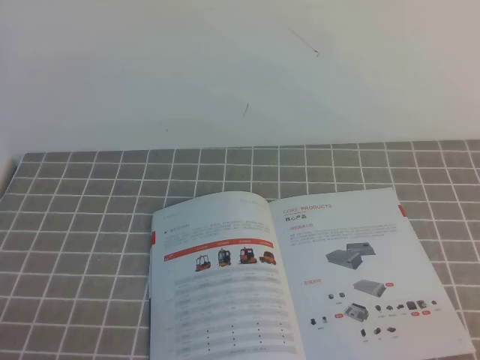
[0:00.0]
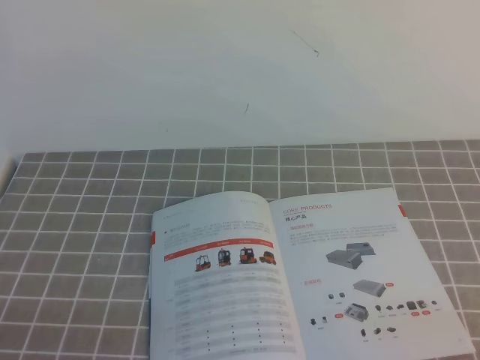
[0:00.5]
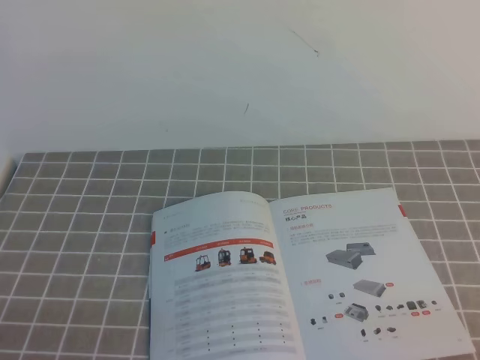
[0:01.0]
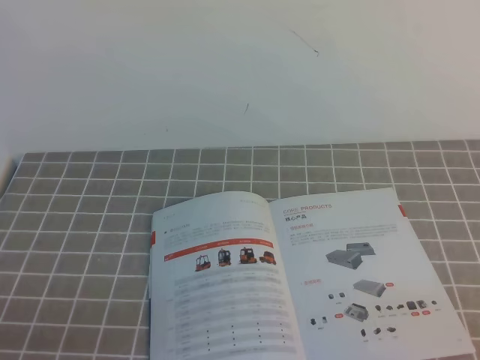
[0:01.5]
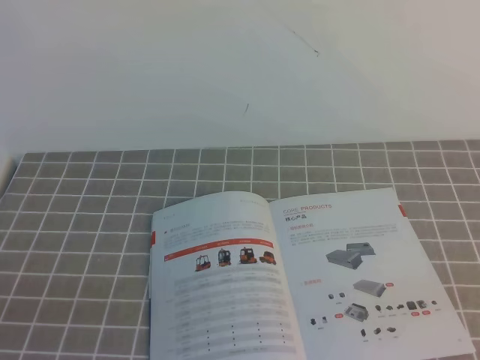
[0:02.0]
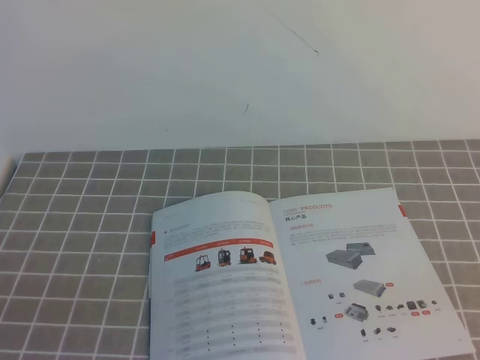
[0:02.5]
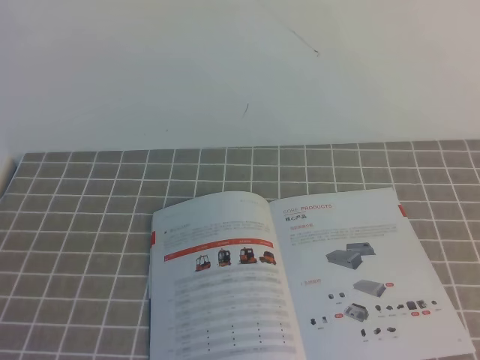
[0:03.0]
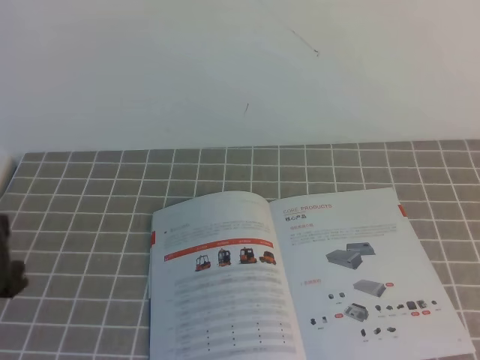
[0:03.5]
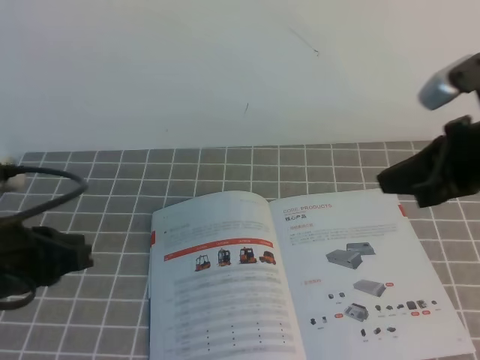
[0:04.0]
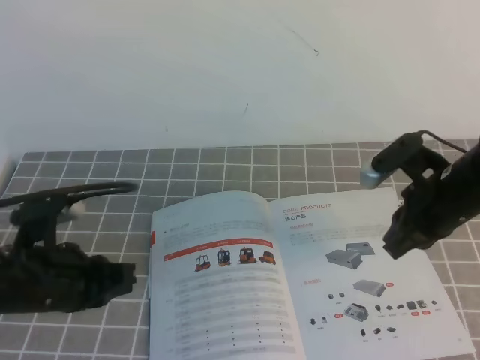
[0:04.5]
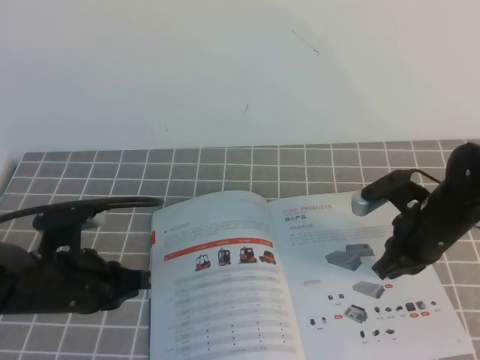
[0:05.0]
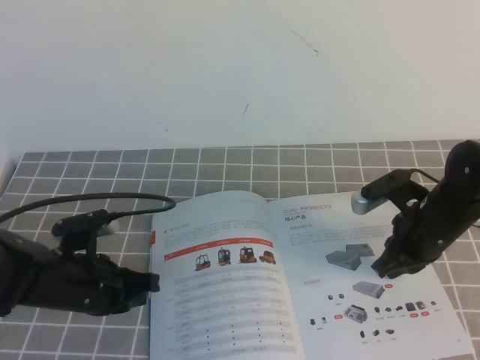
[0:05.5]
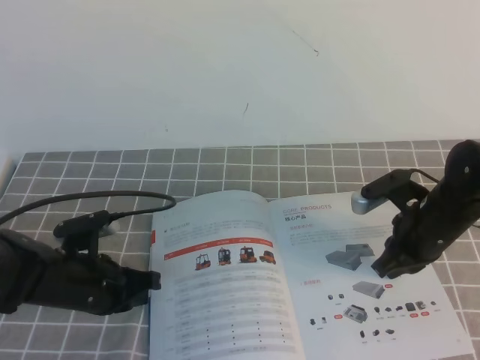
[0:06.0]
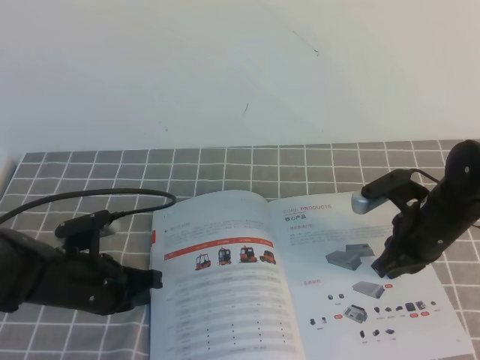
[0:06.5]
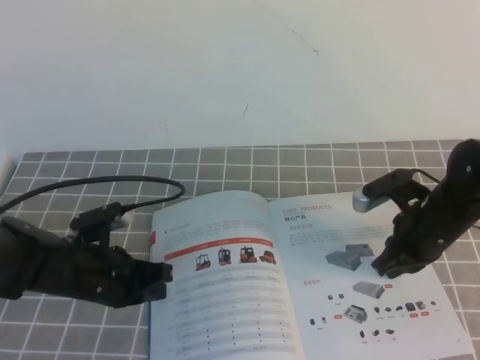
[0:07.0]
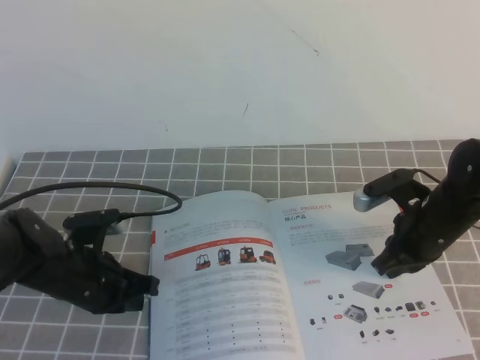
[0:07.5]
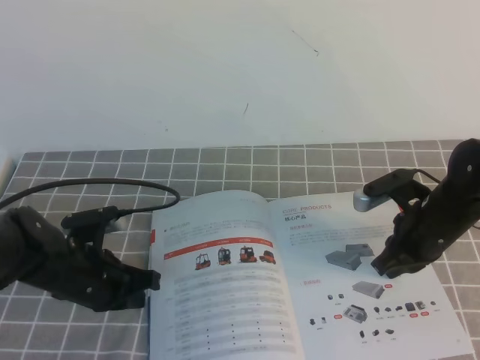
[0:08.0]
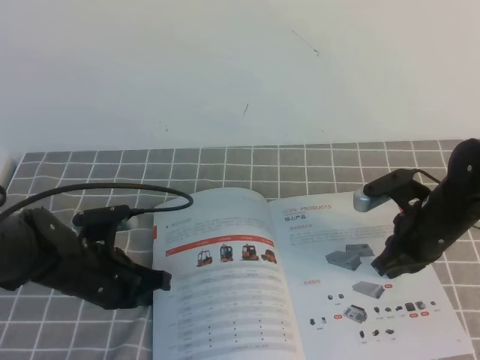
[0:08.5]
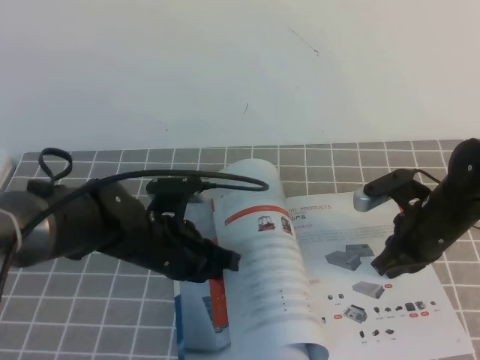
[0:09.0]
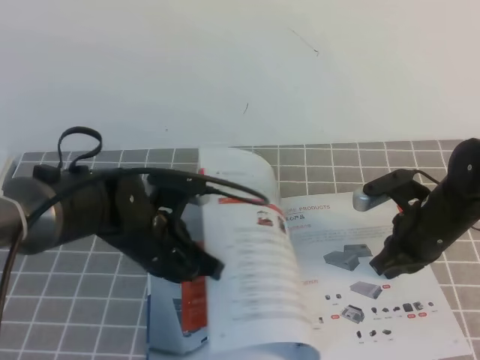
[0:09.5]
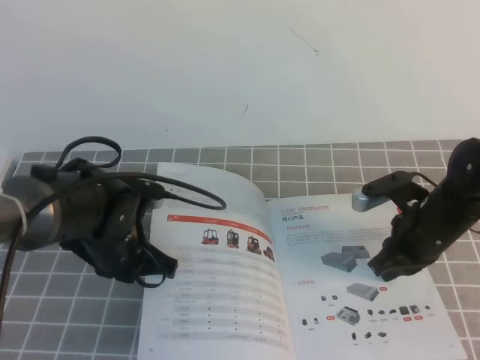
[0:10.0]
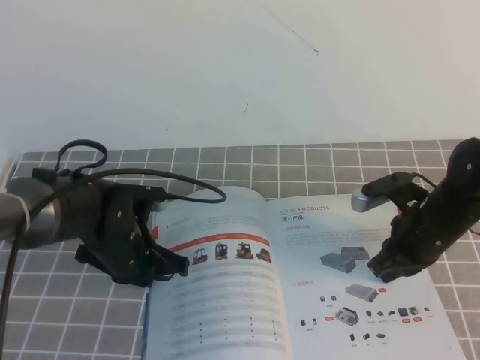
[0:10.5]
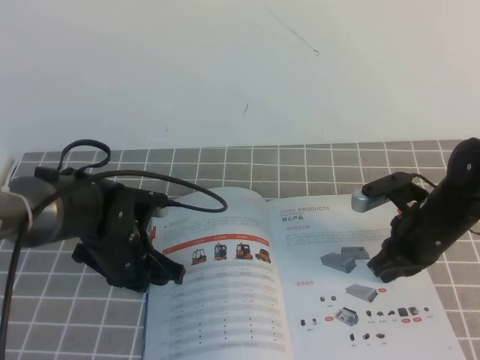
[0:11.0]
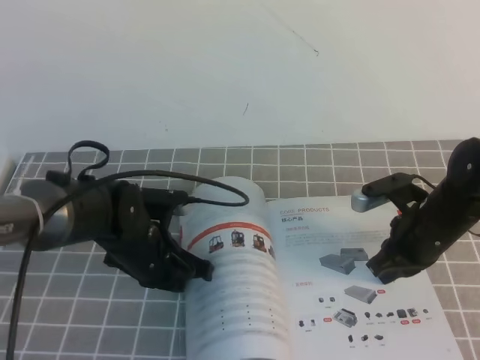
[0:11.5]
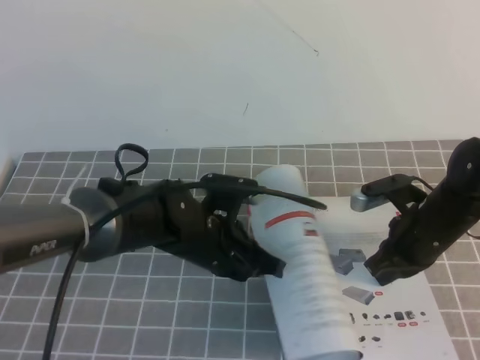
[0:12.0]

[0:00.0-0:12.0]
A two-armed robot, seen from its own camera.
Task of the whole recording: on the grey tablecloth, hold the book with one hand and close it with the other.
0:02.0 to 0:04.0: Both grippers move forward, approximately 20 cm.
0:04.0 to 0:06.0: Both grippers travel together downward and forward, approximately 20 cm.
0:06.0 to 0:08.0: The grippers stay close to where they were, moving slightly.
0:10.0 to 0:12.0: The left gripper travels to the right by approximately 10 cm.

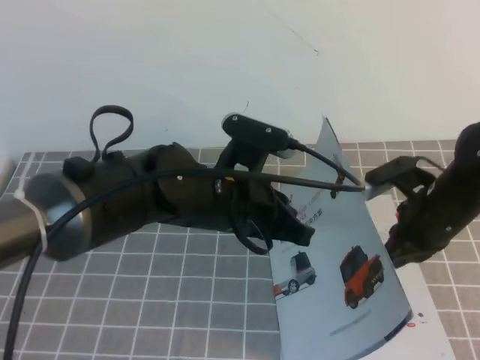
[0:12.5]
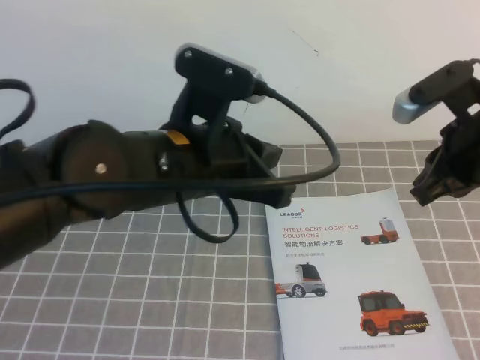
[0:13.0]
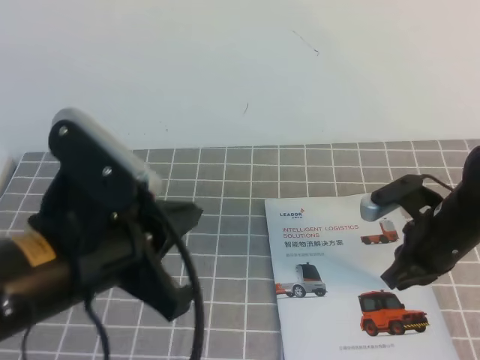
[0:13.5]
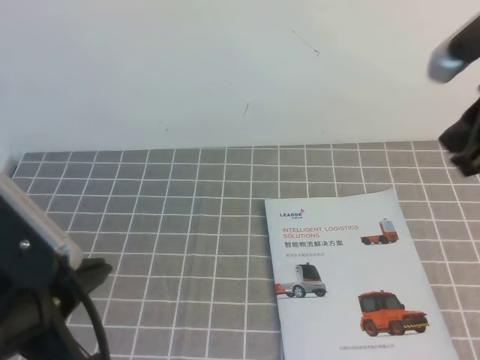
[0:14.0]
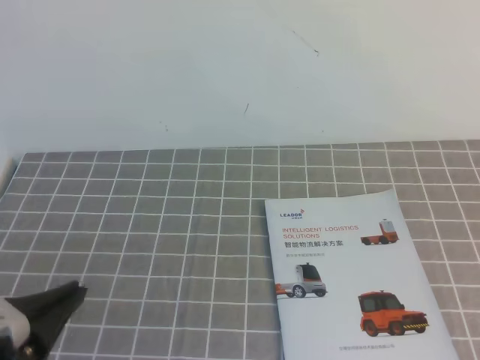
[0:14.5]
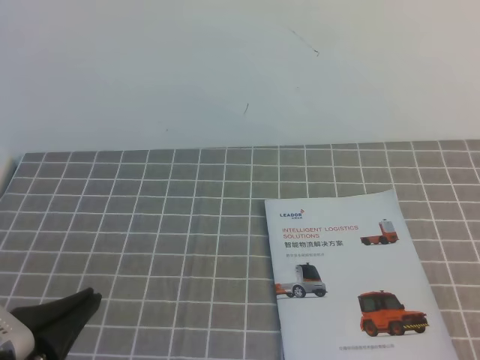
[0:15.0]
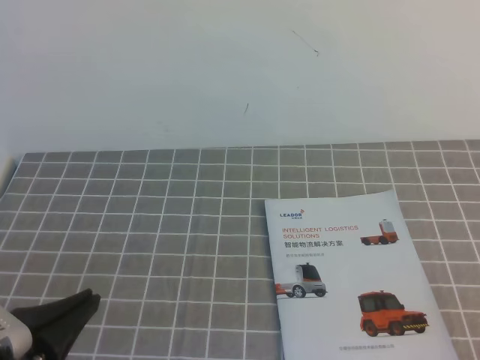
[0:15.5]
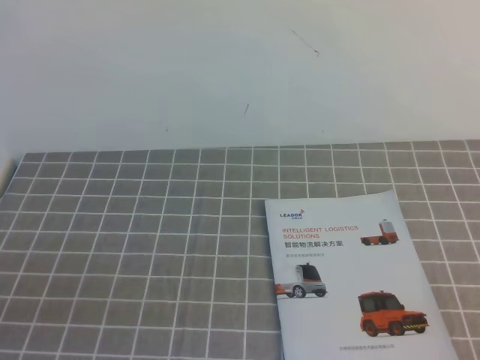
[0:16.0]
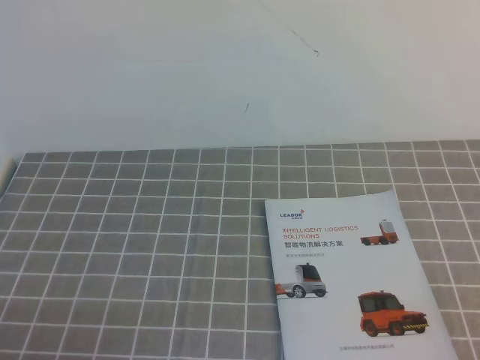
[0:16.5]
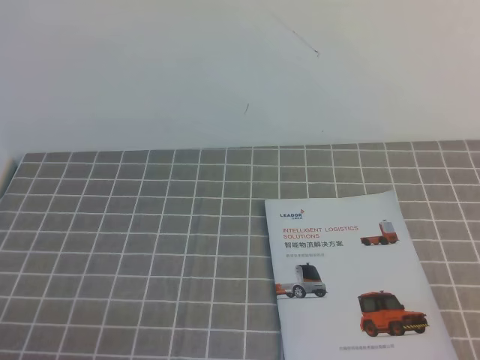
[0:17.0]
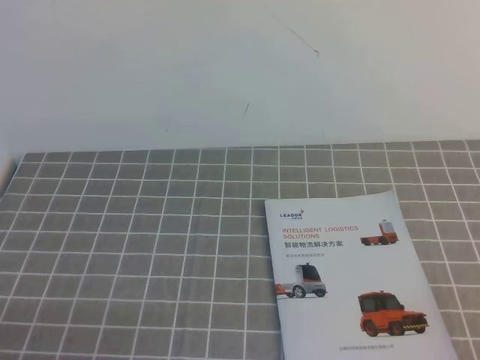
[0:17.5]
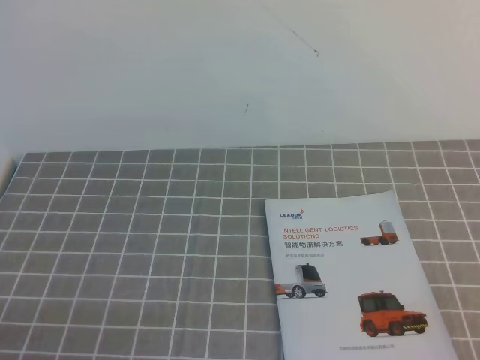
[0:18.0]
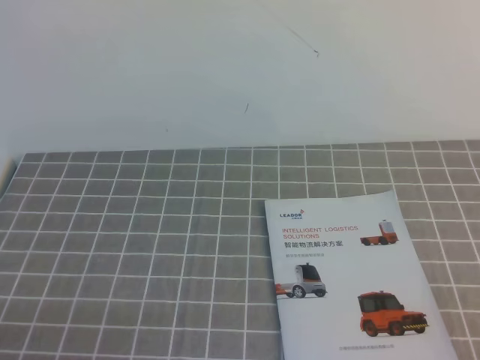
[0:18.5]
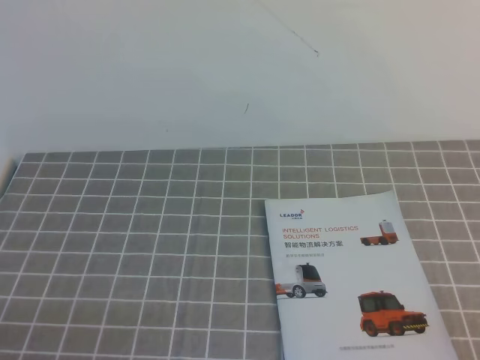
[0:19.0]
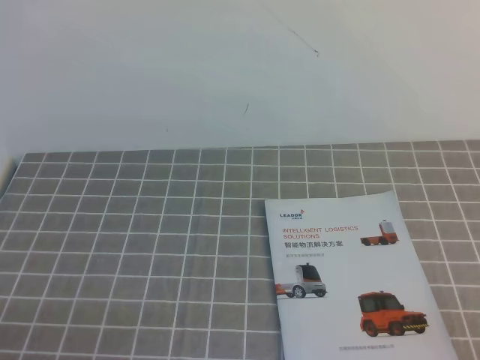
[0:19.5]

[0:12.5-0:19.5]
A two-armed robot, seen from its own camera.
Task of the whole recording: on the grey tablecloth, hold the book with one hand and close it with the other.
Step, 0:12.5 to 0:19.5: Close the open book.
0:12.5 to 0:14.5: The right gripper heads backward and upward, covering about 30 cm; the left gripper shifts about 25 cm backward and to the left.
0:14.5 to 0:16.0: The left gripper changes place by roughly 5 cm, while the right gripper shifts some 15 cm downward.
